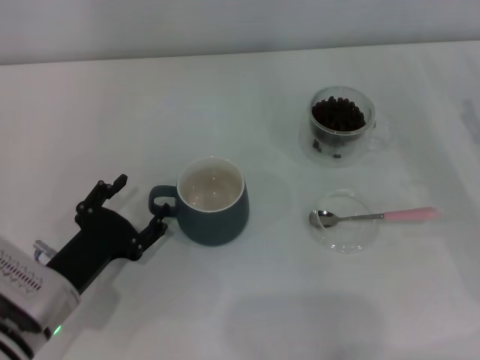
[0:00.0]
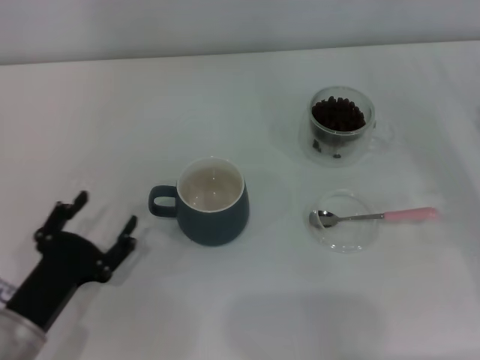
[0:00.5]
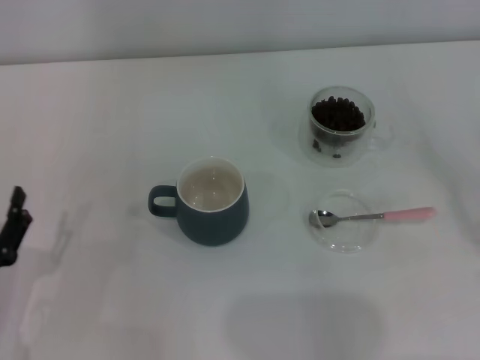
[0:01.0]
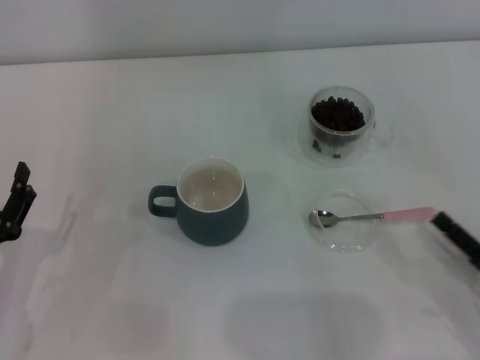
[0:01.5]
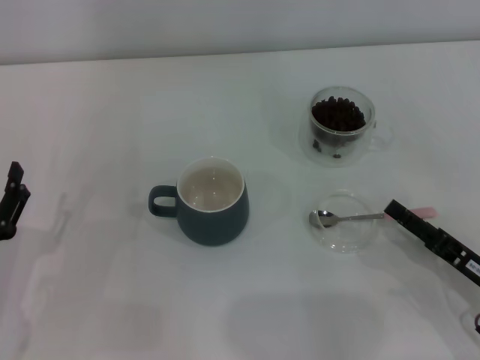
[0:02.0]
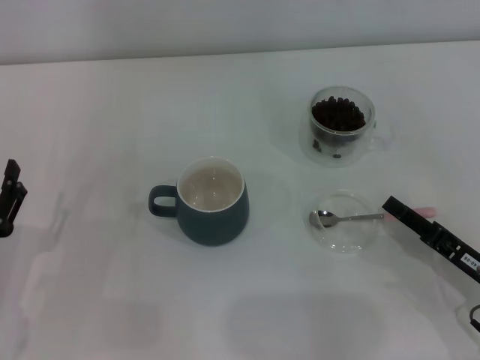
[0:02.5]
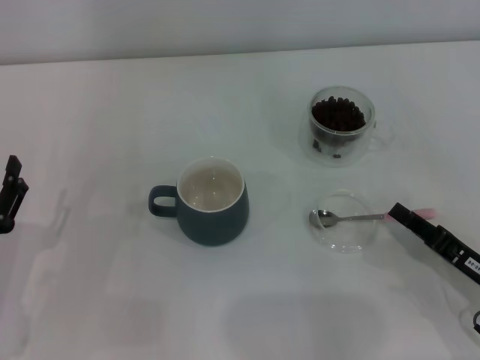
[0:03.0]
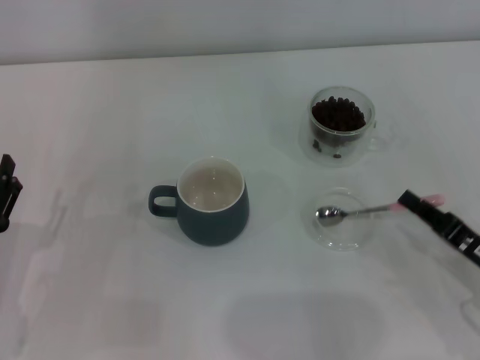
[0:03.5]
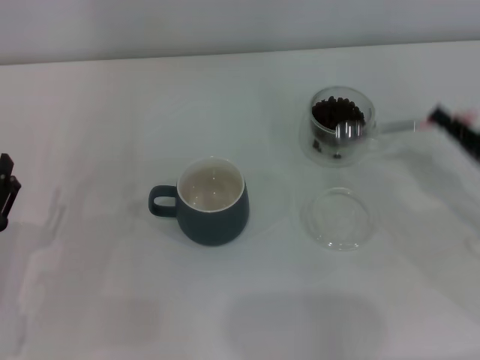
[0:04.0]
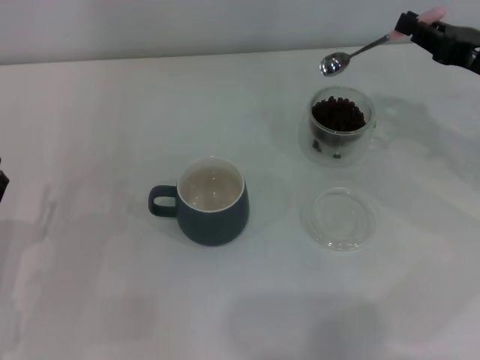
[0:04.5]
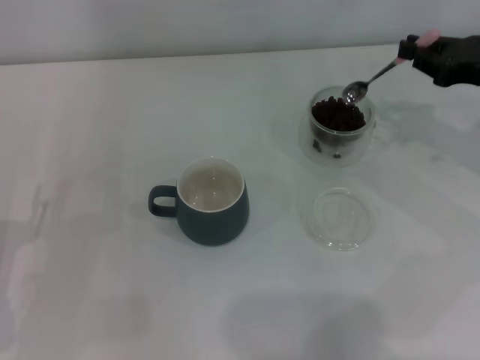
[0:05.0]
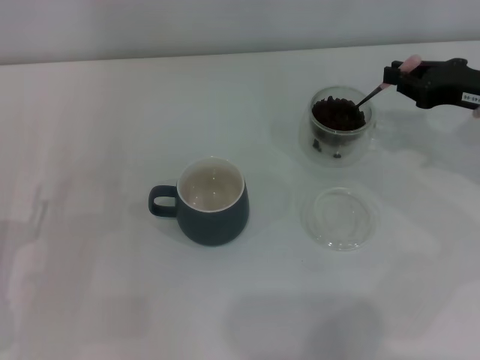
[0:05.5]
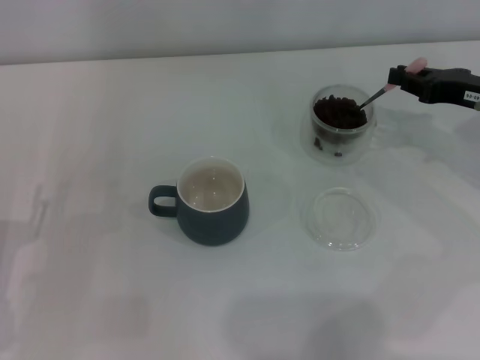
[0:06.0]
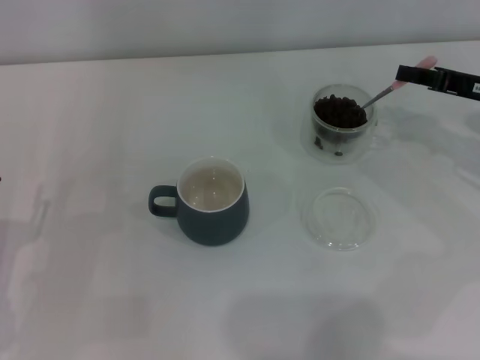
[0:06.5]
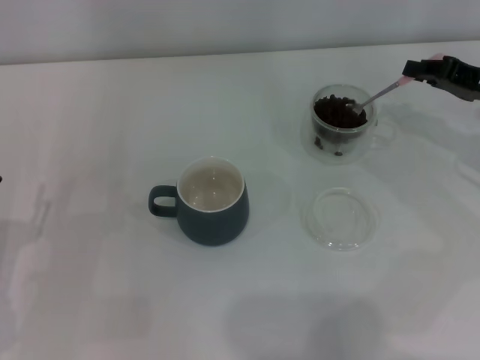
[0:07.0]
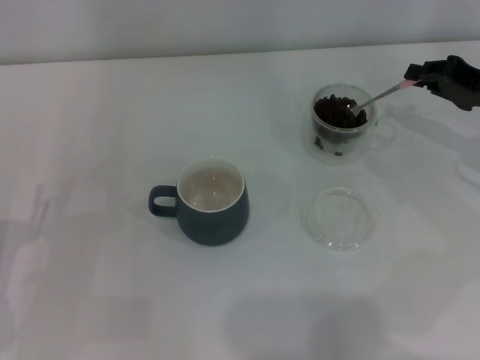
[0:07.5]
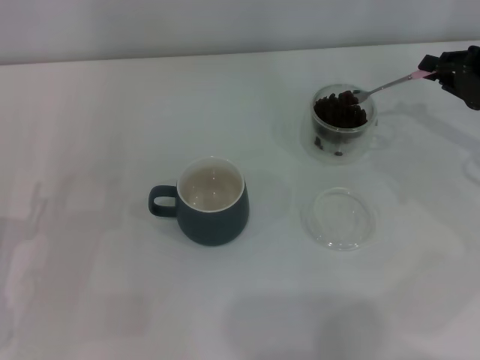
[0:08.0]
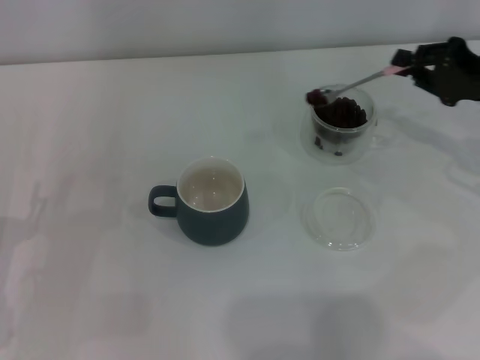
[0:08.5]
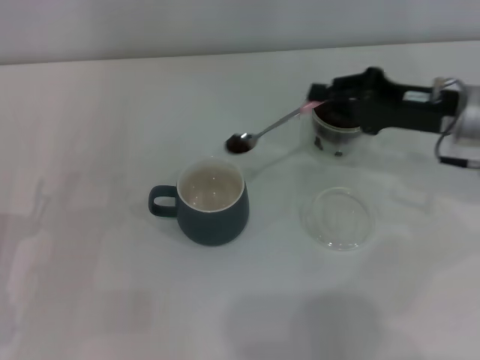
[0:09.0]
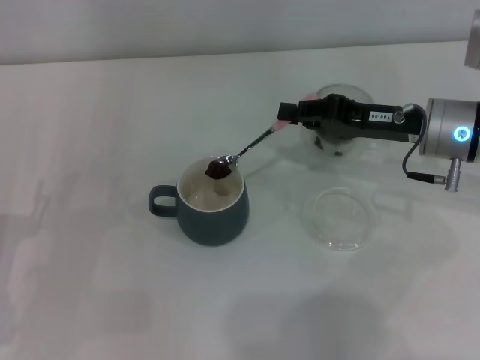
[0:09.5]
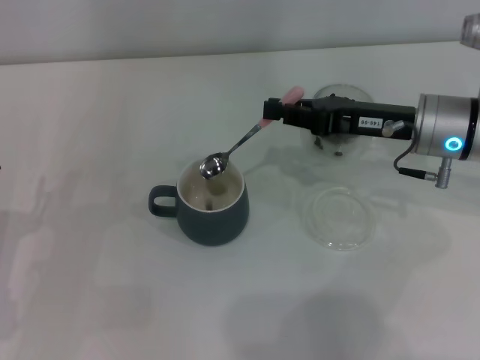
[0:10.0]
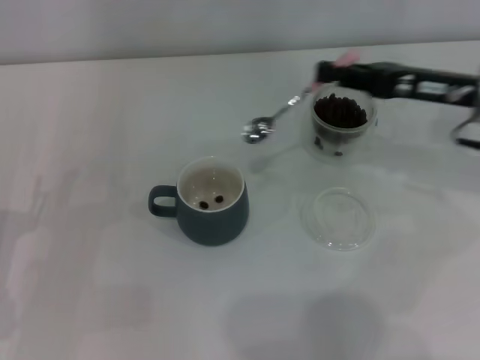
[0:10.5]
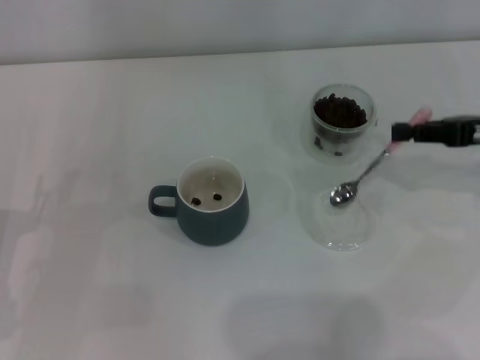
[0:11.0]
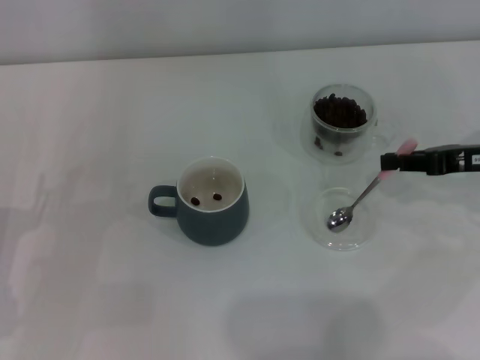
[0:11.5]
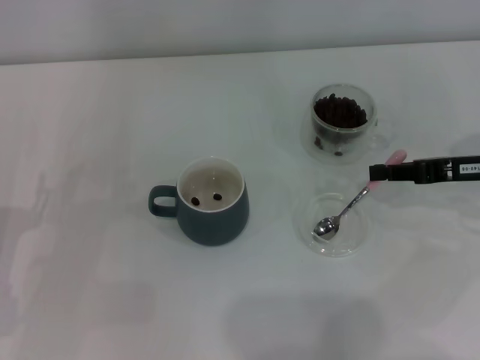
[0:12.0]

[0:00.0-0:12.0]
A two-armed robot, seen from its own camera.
Task of the whole recording: Use a pink spoon to take out the coffee beans from the glass and pour them into the gray cup.
Step, 0:00.5 to 0:03.5: Pick up the spoon with the right gripper.
Step, 0:04.0 to 0:10.0: Scoop a spoonful of beans into the cup with the right gripper.
0:00.0 to 0:02.0: The right gripper goes approximately 15 cm backward, to the left and downward, while the left gripper goes roughly 5 cm to the left.
0:02.0 to 0:04.0: The right gripper heads forward and upward, covering about 10 cm, and closes its fingers.
0:04.0 to 0:06.0: The right gripper moves forward and upward, roughly 15 cm.
0:08.0 to 0:10.0: The right gripper heads to the left, covering some 15 cm.
0:10.0 to 0:12.0: The right gripper is displaced to the right by approximately 10 cm.

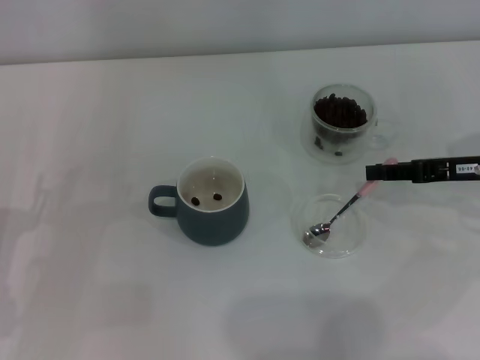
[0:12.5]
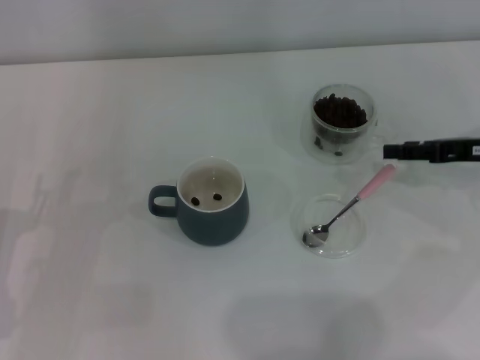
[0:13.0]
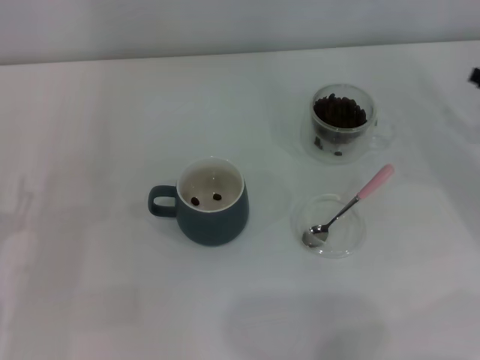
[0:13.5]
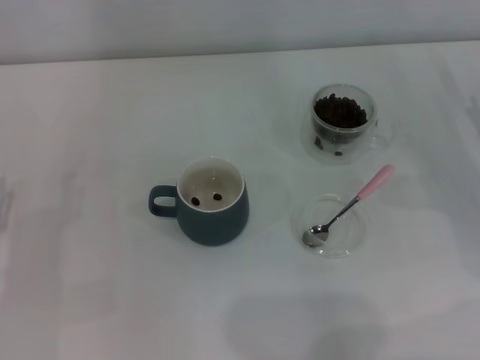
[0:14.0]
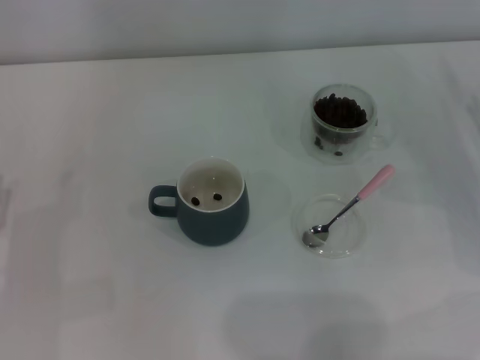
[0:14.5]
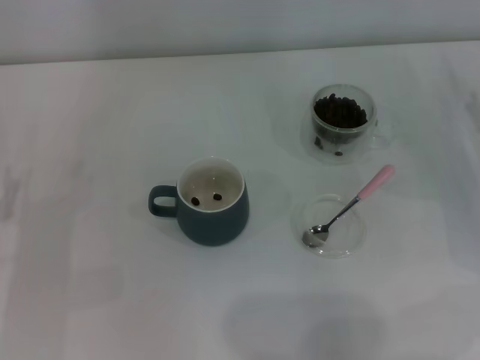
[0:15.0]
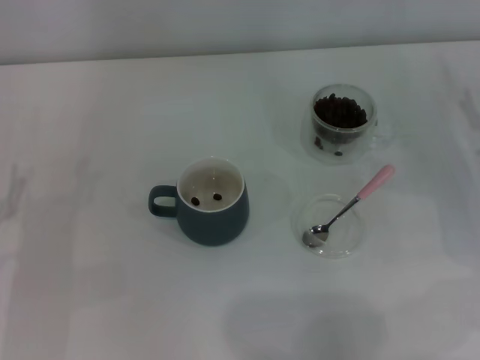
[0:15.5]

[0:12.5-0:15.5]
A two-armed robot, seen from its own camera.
Task of the whole recording: Use a pink spoon to take out the coffee beans from the glass and pour them into the gray cup.
0:12.5 to 0:14.0: The right gripper ends up some 5 cm from where it was, and opens its fingers.
